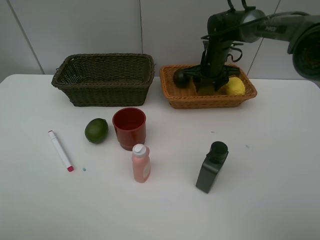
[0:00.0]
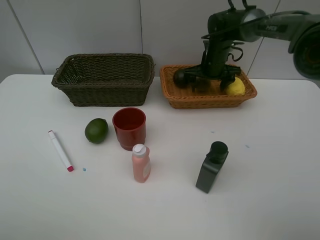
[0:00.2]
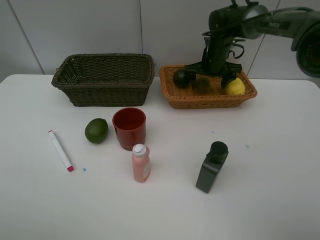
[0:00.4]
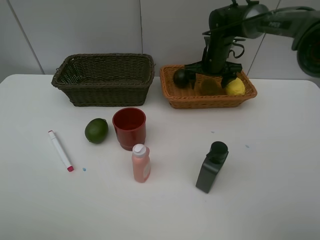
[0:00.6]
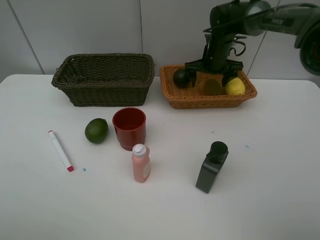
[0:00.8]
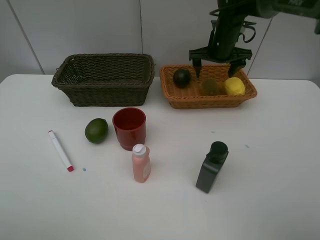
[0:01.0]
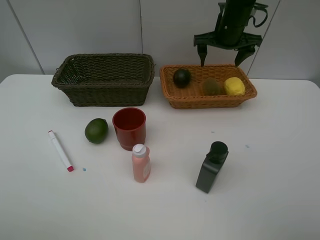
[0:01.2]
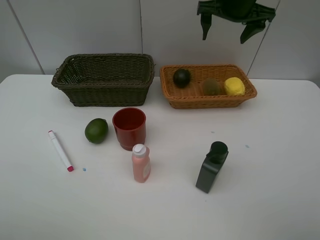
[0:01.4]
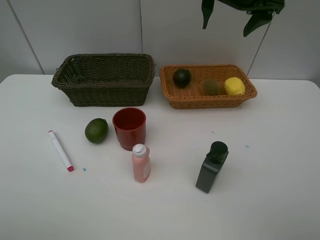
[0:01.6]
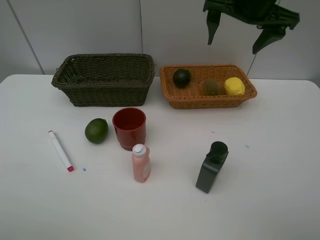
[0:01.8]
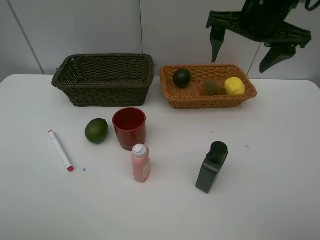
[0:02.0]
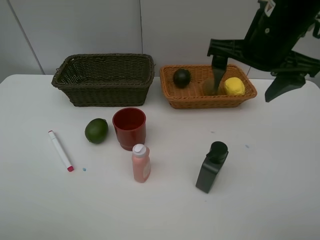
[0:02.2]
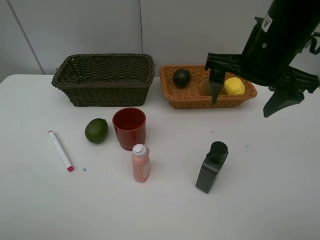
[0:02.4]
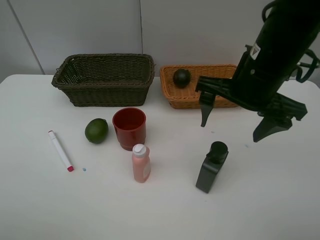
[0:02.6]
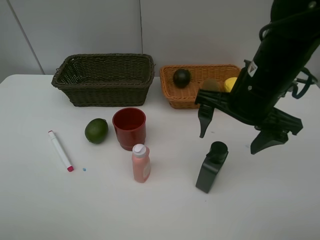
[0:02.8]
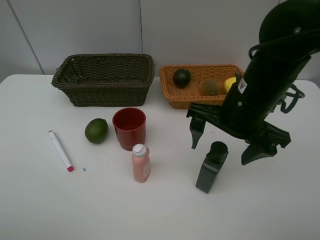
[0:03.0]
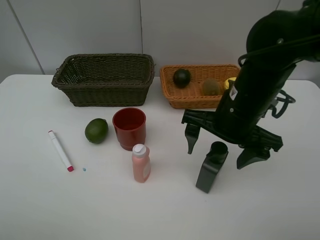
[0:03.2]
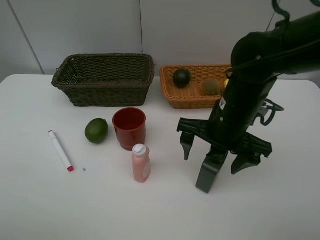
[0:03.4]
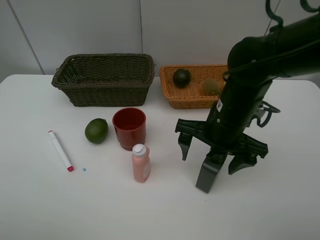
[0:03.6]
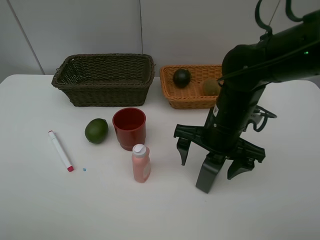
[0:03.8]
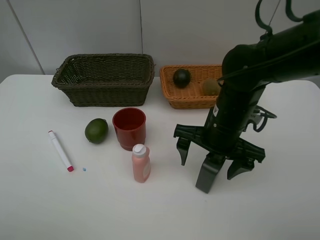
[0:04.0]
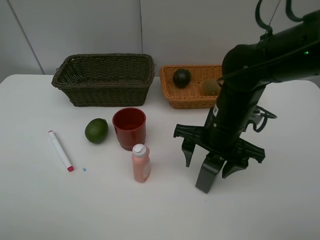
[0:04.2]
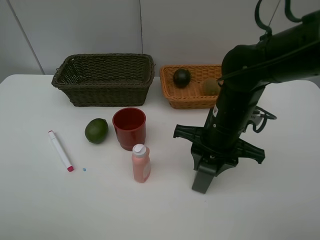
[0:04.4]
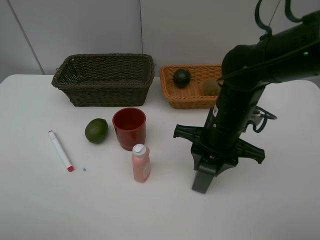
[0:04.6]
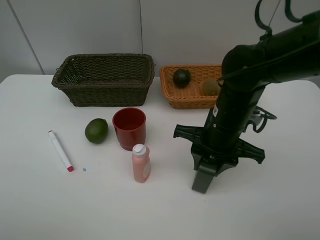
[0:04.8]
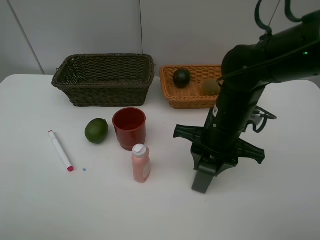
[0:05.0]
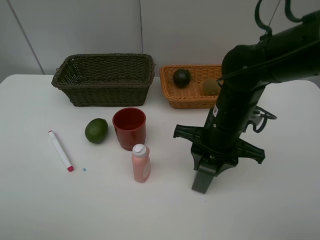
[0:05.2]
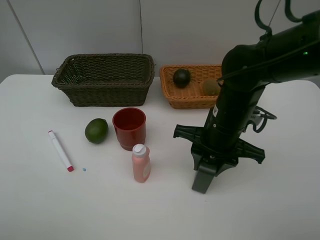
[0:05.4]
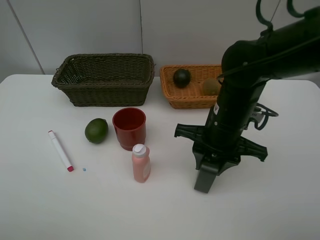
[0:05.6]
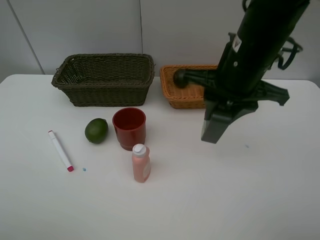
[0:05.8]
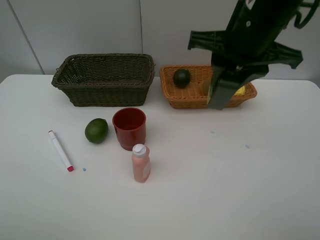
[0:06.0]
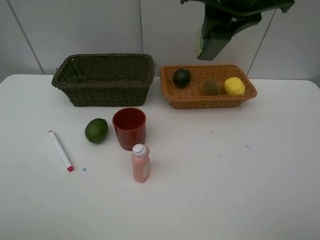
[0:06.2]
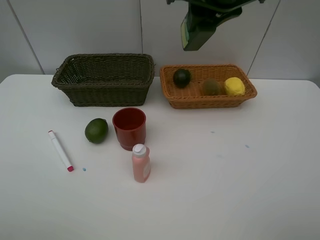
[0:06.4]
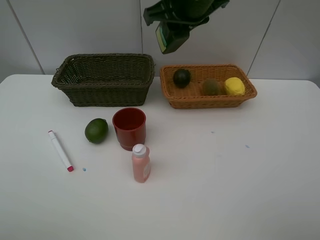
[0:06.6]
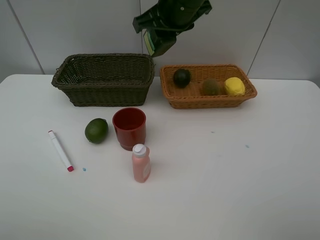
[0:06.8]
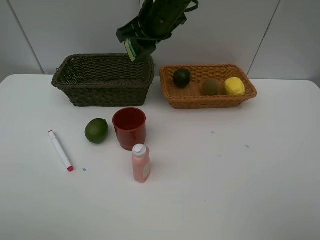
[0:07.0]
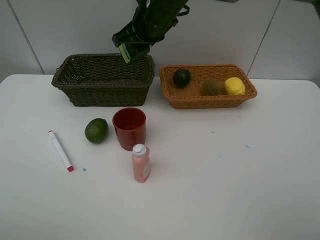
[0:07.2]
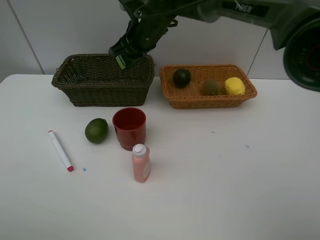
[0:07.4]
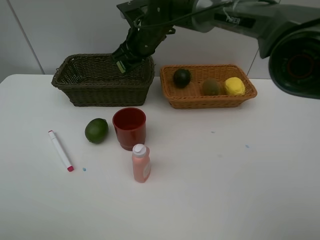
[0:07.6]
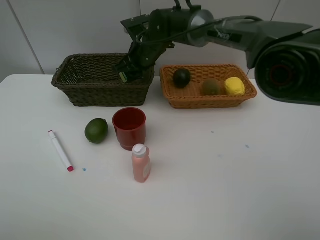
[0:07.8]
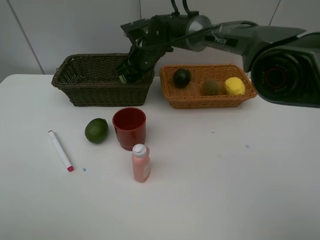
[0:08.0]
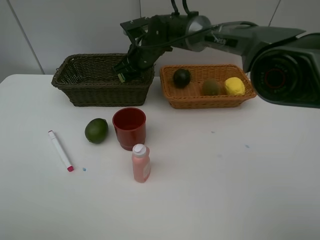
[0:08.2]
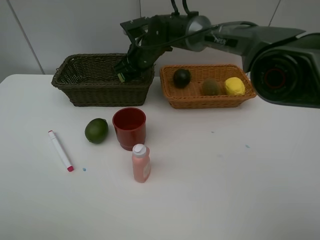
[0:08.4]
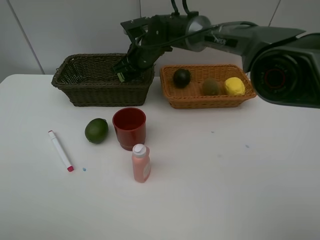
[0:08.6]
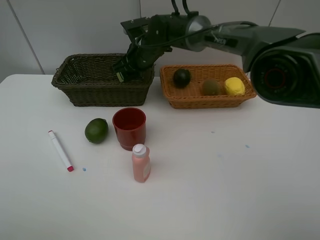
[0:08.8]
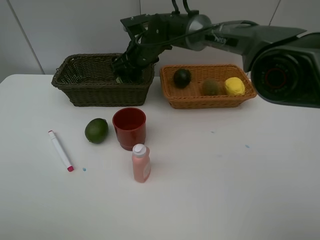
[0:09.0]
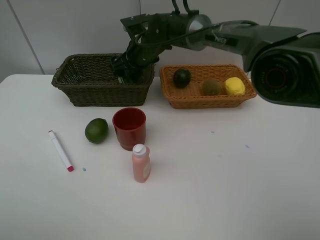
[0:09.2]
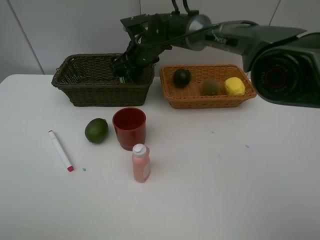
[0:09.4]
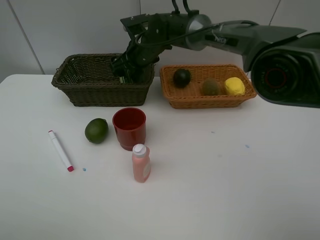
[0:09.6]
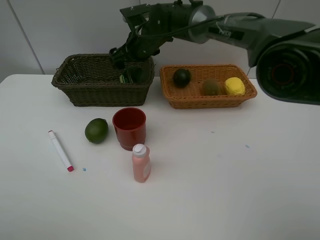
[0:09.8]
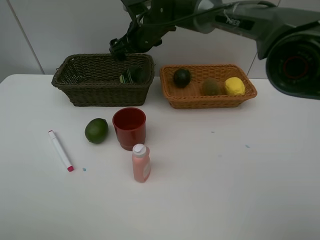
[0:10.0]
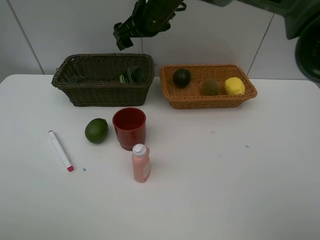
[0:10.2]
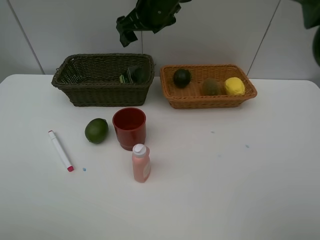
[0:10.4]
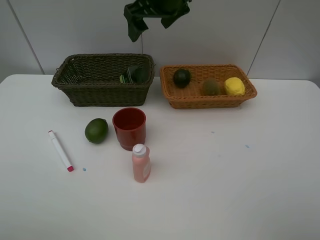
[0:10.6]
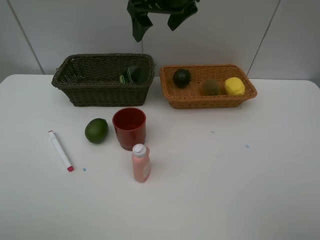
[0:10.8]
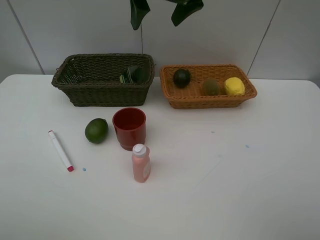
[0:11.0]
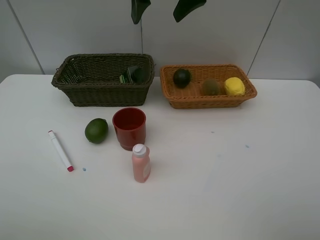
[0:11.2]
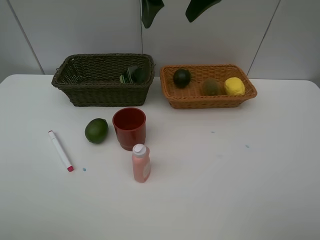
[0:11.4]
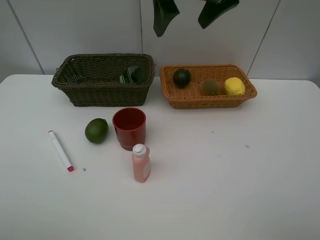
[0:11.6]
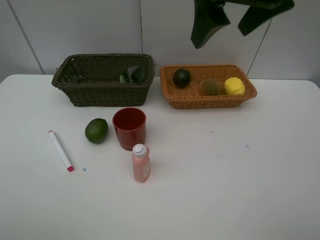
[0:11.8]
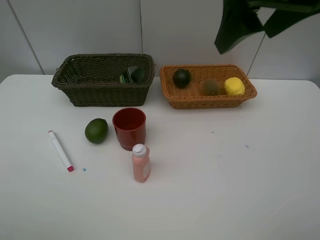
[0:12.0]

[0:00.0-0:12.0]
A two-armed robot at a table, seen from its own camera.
Task of the whole recording: Place multiple objects separately in different baskets.
Step, 0:01.2 to 0:05.6: Pick up the hard facial cleanser with right gripper.
Step, 0:05.8 to 0:10.0: Place the hard facial cleanser in the dark basket with right gripper.
0:00.0 to 0:01.6: The right gripper goes approximately 20 cm upward and backward, and opens.
0:01.6 to 0:03.0: The right gripper travels backward and downward by some 20 cm.
0:03.0 to 0:04.4: The right gripper moves downward, about 5 cm, and closes up.
0:04.4 to 0:06.0: The right gripper goes some 15 cm upward.
0:06.0 to 0:07.6: The right gripper goes about 25 cm forward, to the left and downward.
0:07.6 to 0:09.0: The right gripper opens.
0:09.0 to 0:10.4: The right gripper goes roughly 10 cm upward.
0:10.4 to 0:12.0: The right gripper moves backward, to the right and upward, about 30 cm.

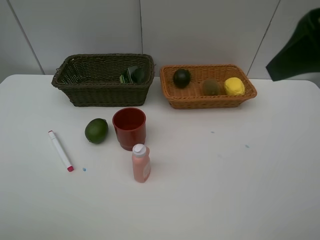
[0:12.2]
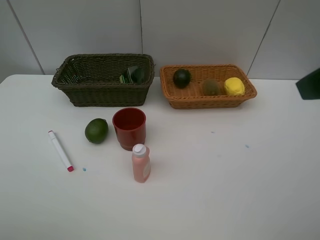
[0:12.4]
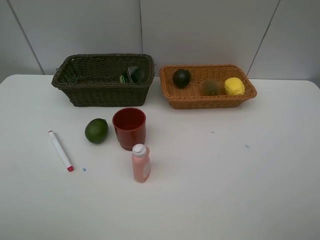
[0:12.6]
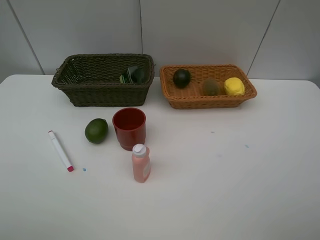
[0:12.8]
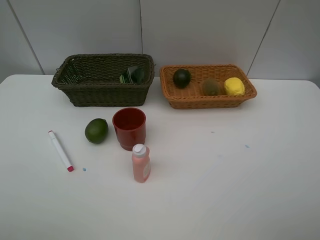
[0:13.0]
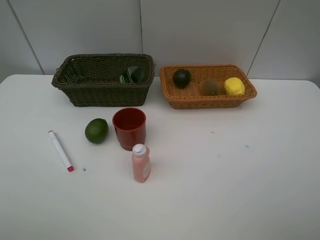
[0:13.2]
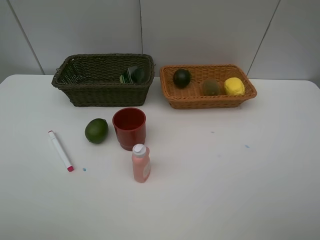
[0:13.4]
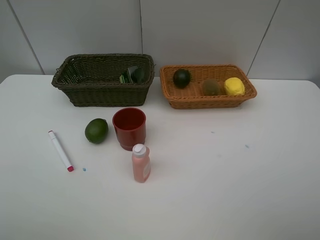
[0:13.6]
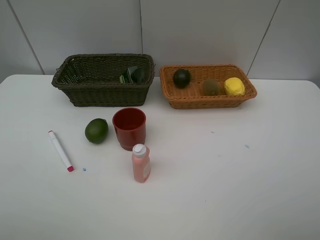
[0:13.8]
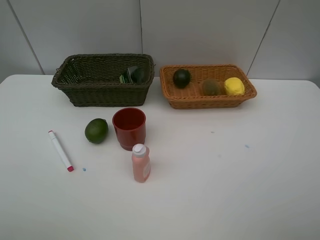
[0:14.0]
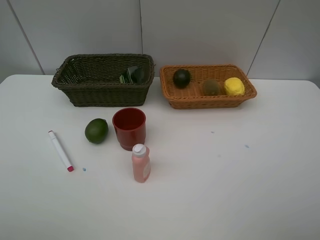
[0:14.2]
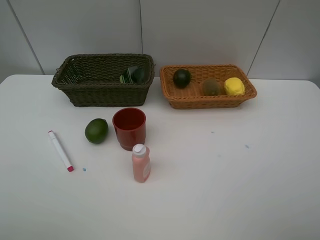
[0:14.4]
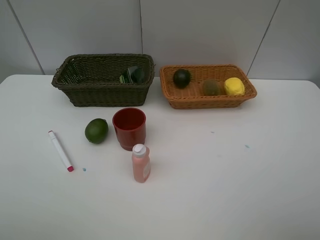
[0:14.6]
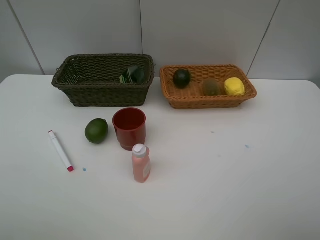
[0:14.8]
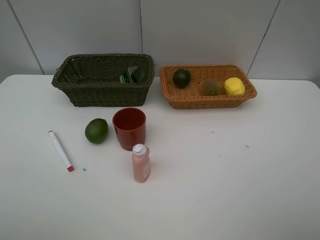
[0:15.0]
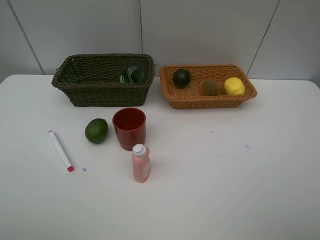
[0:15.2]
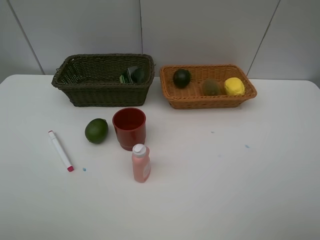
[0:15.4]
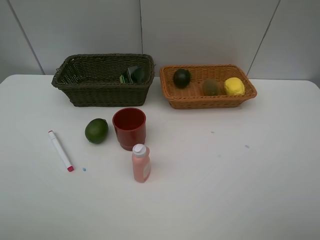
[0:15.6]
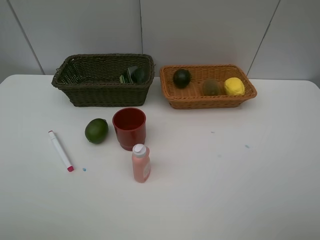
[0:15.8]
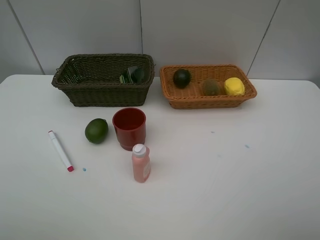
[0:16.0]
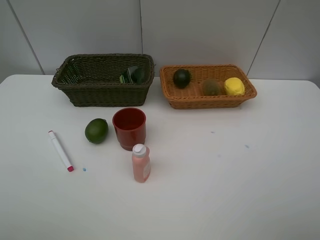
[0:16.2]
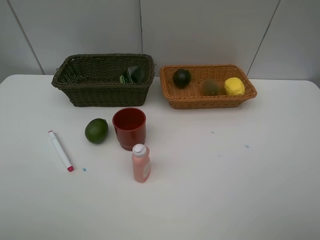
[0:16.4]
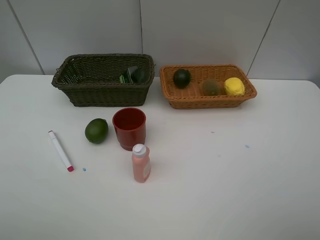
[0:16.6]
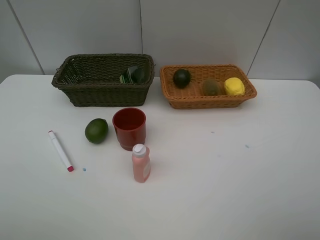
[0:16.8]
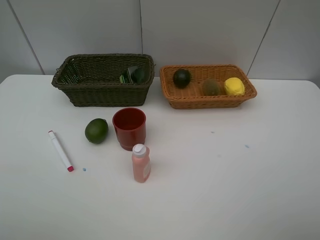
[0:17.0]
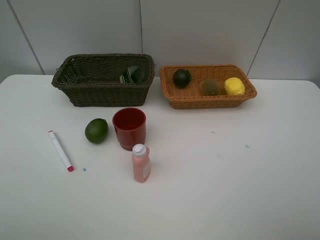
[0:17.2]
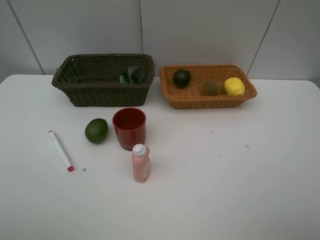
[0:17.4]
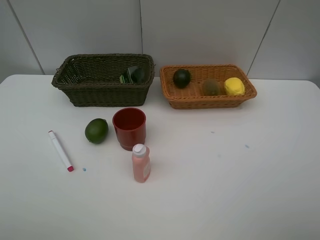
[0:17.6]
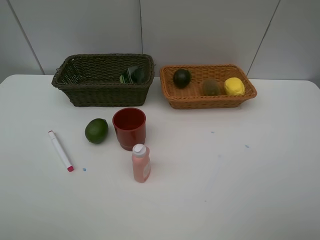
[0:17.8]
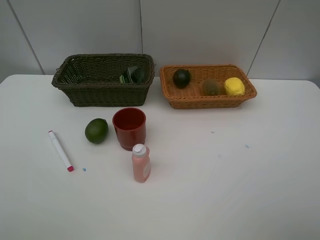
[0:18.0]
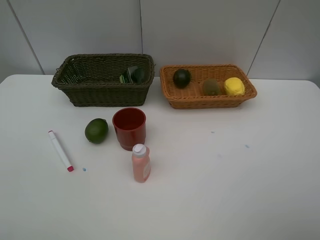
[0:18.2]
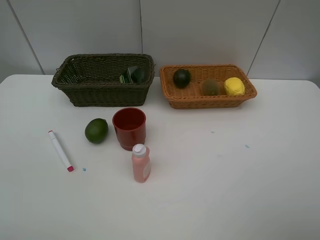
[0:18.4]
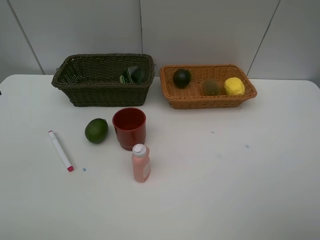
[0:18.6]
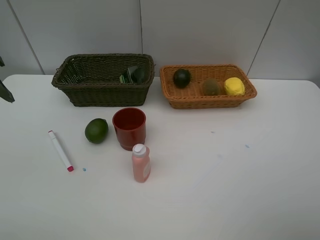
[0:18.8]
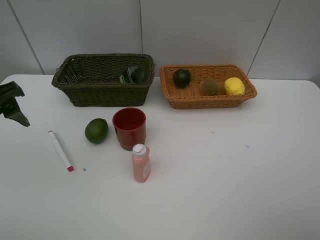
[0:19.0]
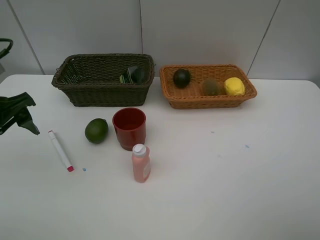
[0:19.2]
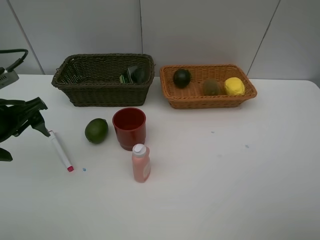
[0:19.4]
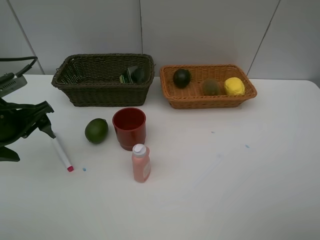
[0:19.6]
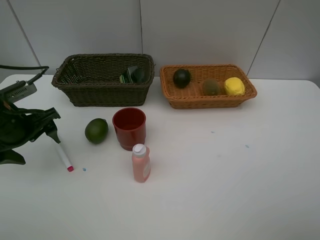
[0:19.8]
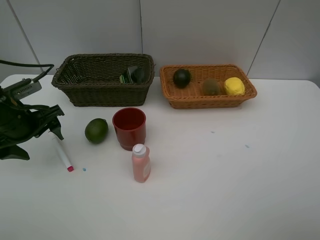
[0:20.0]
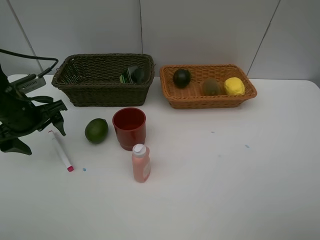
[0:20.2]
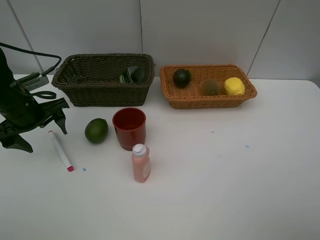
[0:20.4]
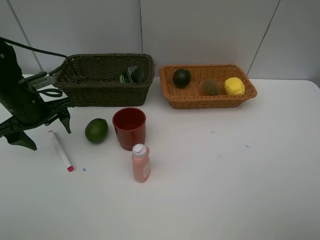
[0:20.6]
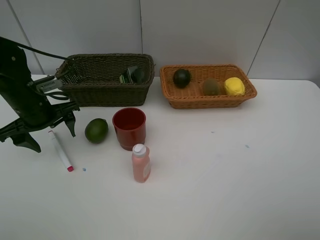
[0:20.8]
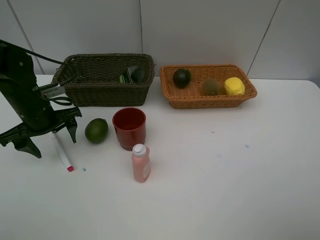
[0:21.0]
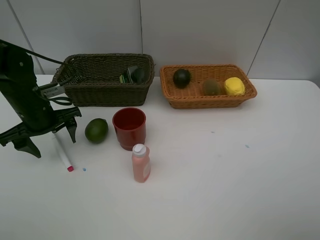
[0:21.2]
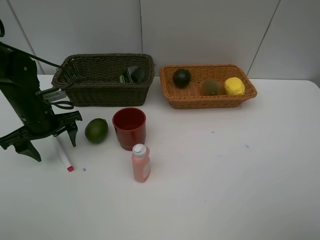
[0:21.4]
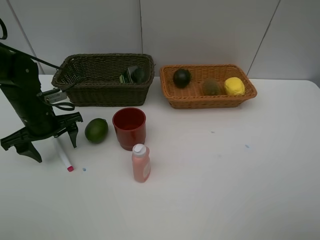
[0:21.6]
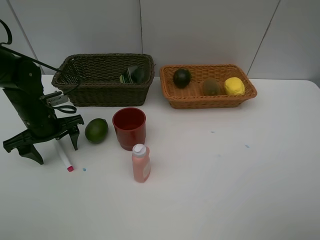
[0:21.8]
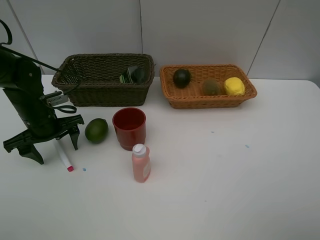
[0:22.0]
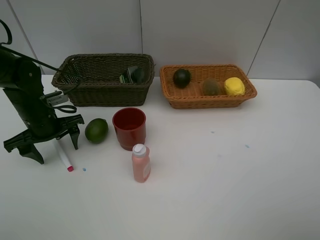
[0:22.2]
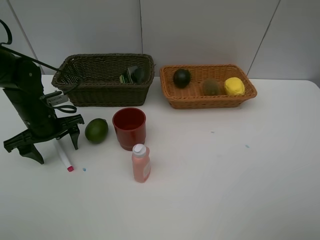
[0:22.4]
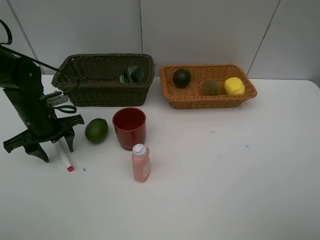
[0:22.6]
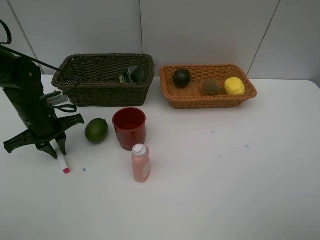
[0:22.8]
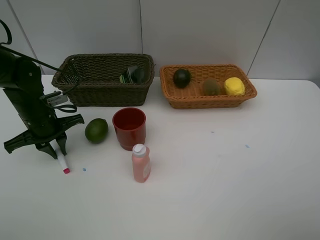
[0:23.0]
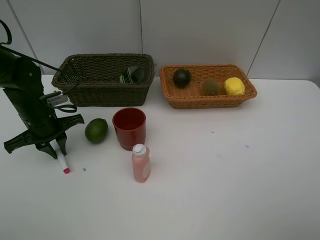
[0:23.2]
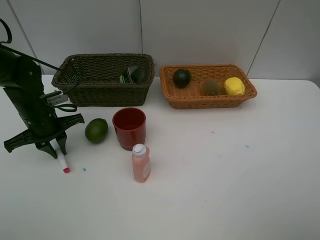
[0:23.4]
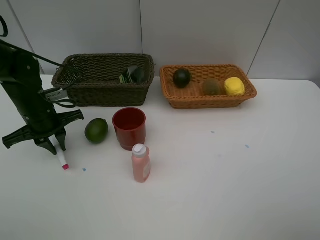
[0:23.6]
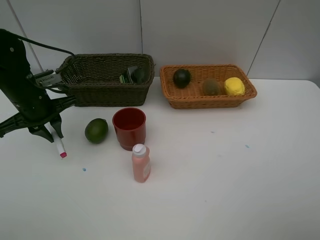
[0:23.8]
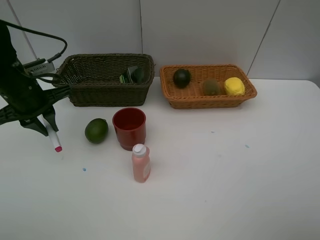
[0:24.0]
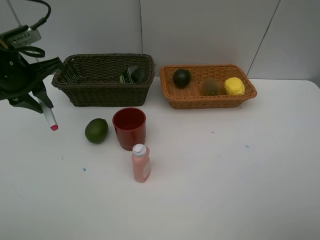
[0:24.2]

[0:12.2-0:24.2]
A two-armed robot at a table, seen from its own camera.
Task of the whole recording: Place multiple objects separately in different baskets.
Step, 0:12.2 to 0:23.8: Pick up pink marker pen with left gripper.
0:12.2 to 0:13.8: The right gripper goes roughly 20 cm backward, downward and to the right.
0:15.2 to 0:16.6: The two grippers keep their place.
0:18.2 to 0:19.8: The left gripper heads downward and forward, covering about 25 cm.
0:19.8 to 0:21.2: The left gripper shifts by about 5 cm.
0:21.2 to 0:22.6: The left gripper closes its fingers.
0:22.6 to 0:24.2: The left gripper moves upward, approximately 15 cm.
